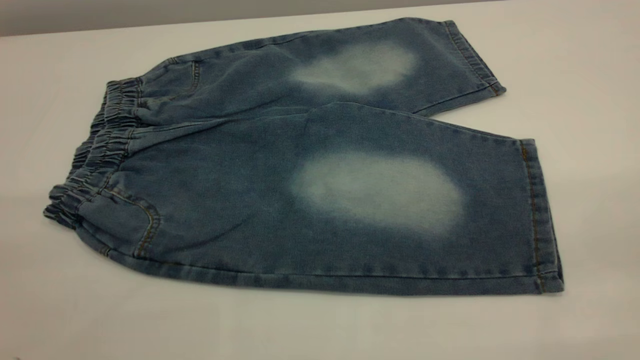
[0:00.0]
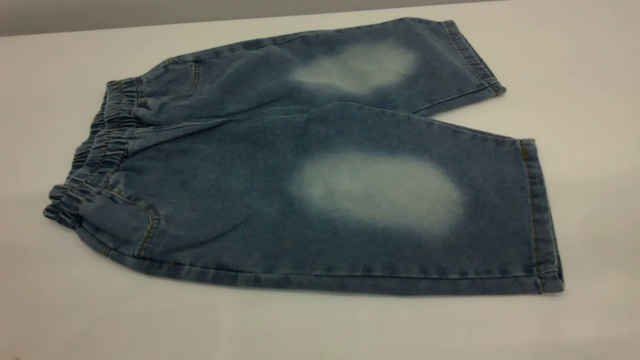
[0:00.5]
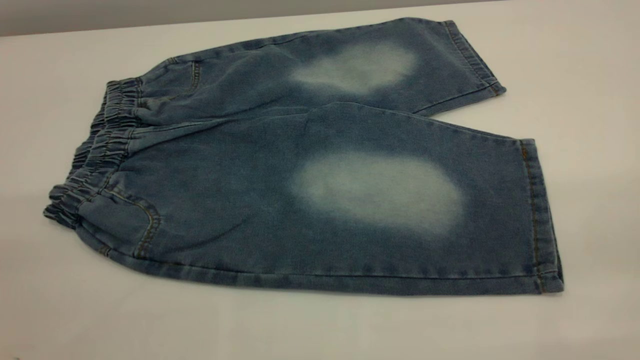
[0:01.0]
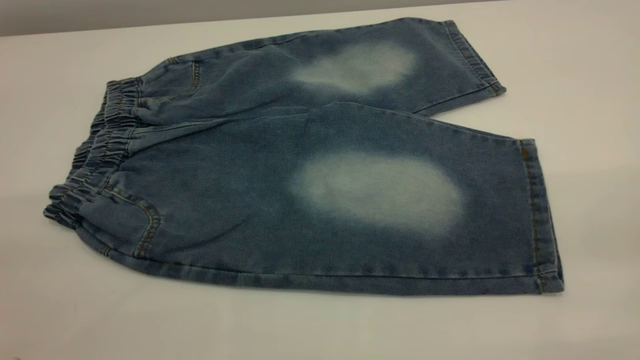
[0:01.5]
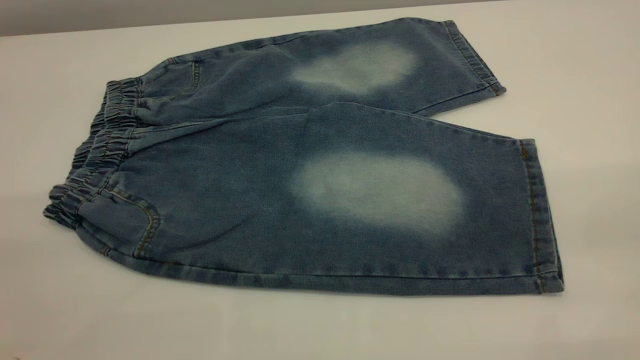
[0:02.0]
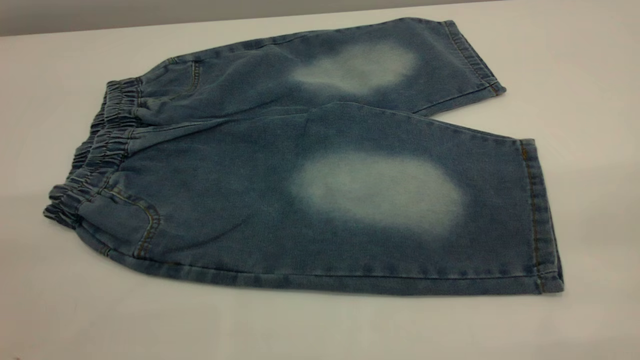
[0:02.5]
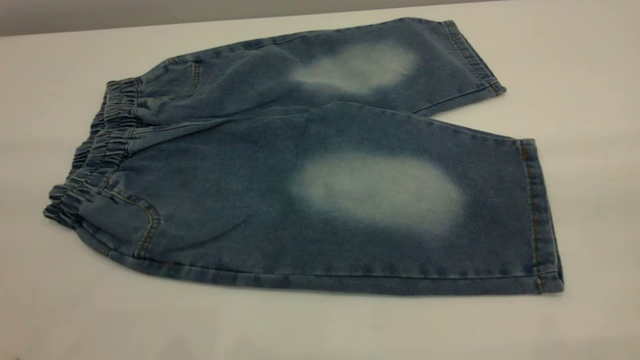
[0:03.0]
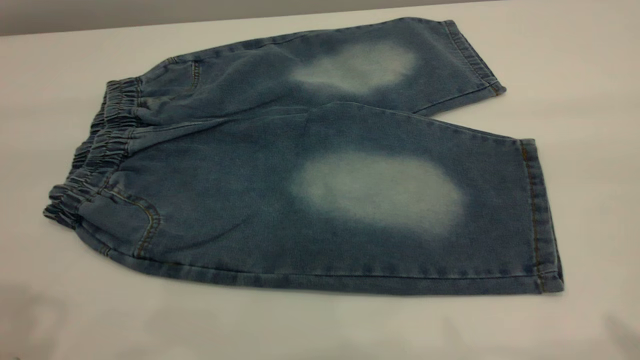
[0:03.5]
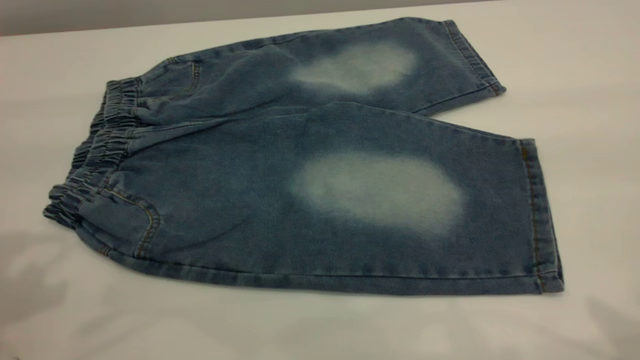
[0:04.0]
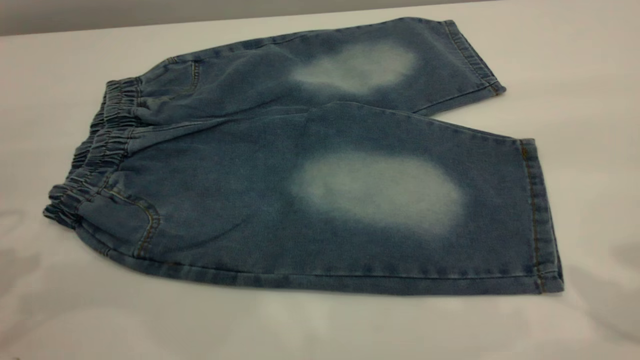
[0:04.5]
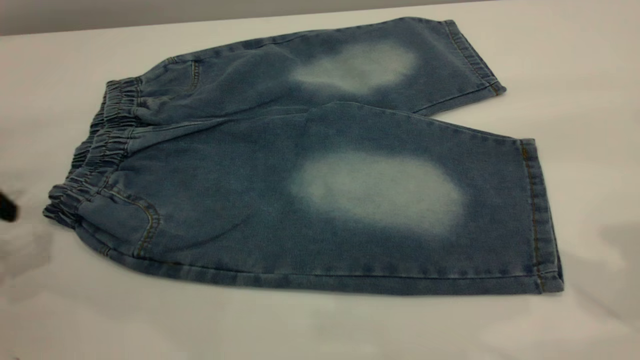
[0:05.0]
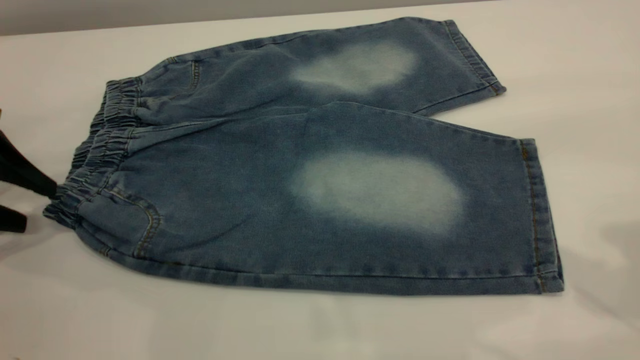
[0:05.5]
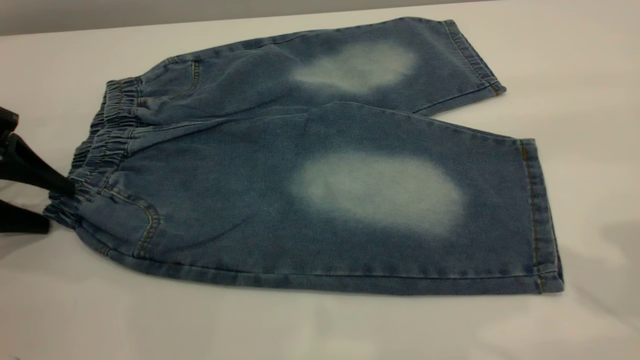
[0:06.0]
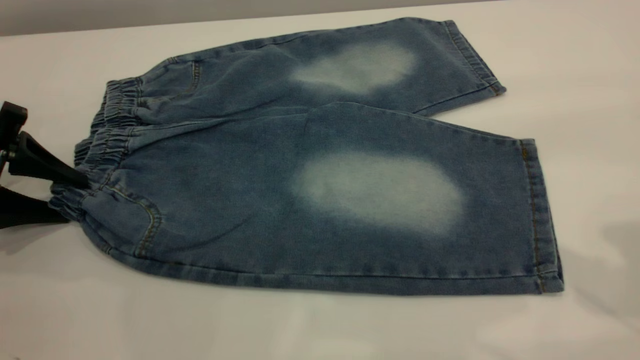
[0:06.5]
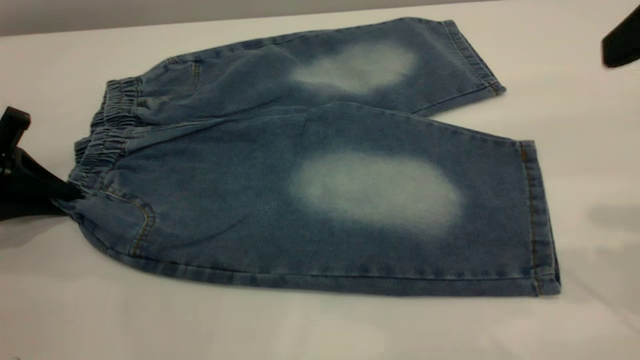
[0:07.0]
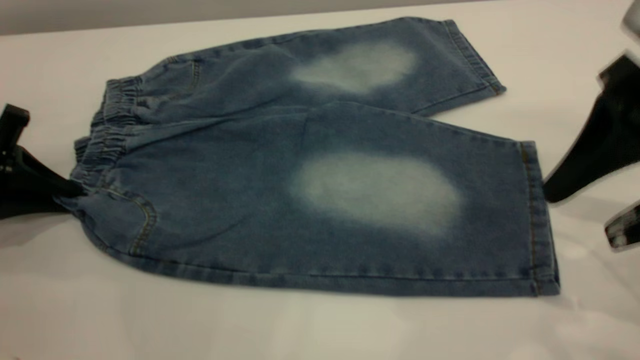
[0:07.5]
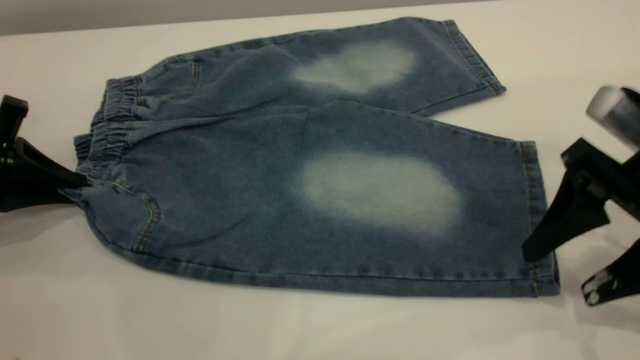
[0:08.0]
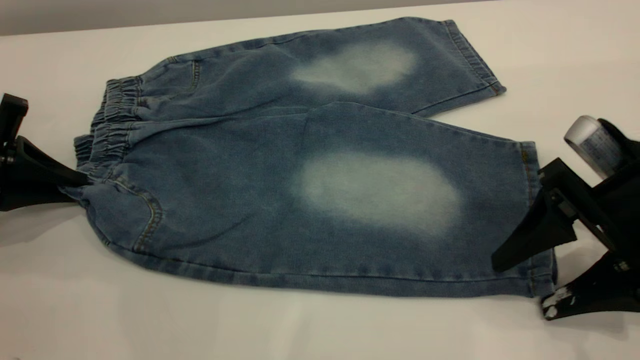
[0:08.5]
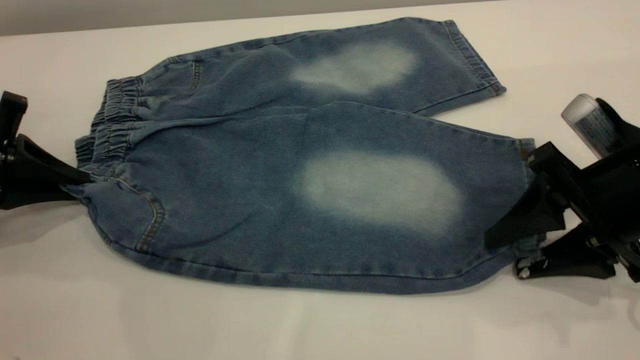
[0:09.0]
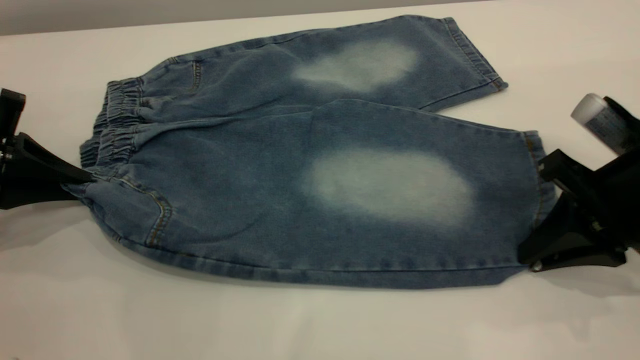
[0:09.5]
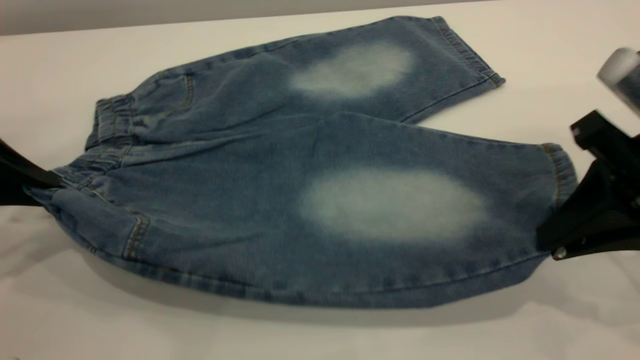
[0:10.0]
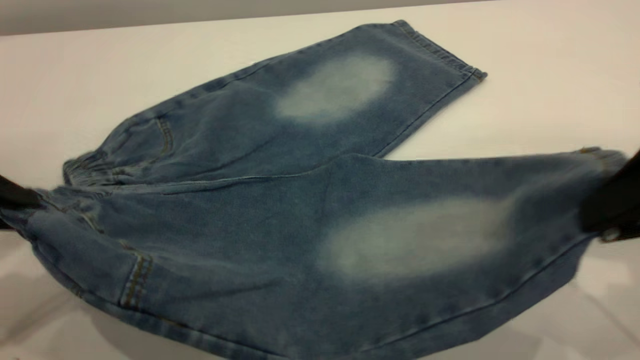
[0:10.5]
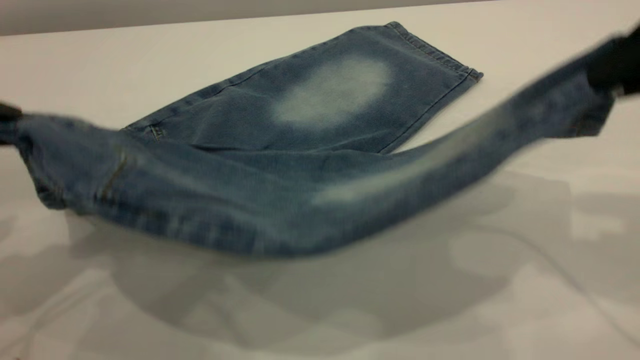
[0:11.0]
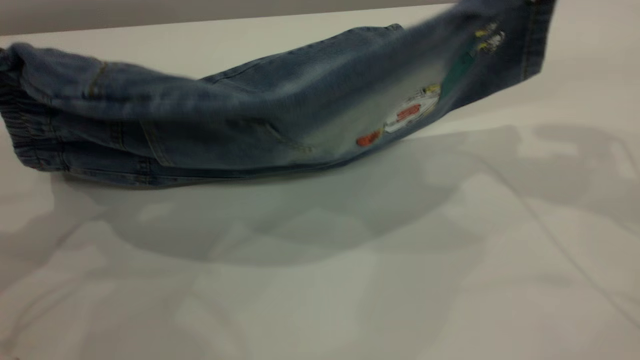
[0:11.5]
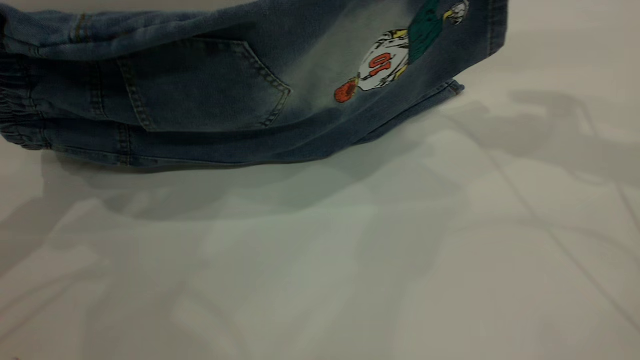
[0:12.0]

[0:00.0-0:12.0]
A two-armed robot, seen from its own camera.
0:04.0 to 0:06.0: The left gripper travels downward and forward by approximately 25 cm.
0:06.0 to 0:08.0: The right gripper is displaced downward by about 20 cm, while the left gripper closes up.
0:08.0 to 0:10.0: The left gripper heads upward, covering approximately 5 cm, while the right gripper closes its fingers.
0:10.0 to 0:12.0: The right gripper is displaced forward and upward by about 20 cm. Meanwhile the left gripper shifts approximately 10 cm upward.

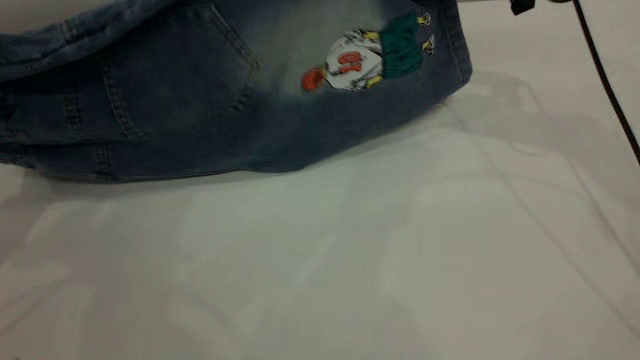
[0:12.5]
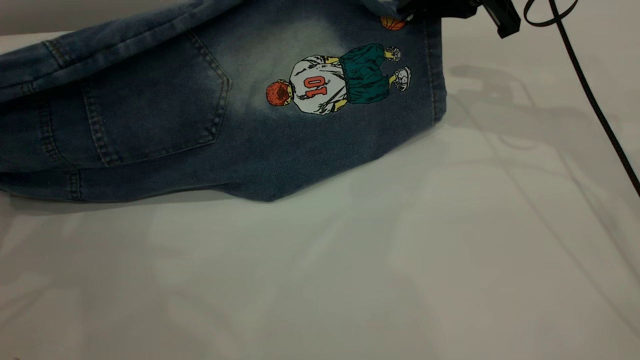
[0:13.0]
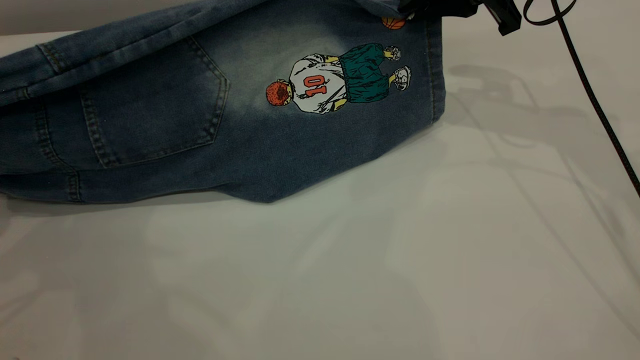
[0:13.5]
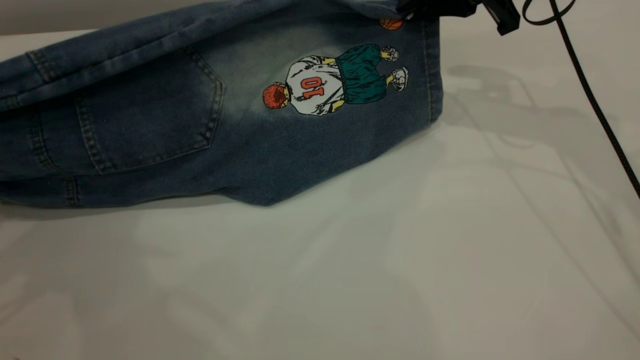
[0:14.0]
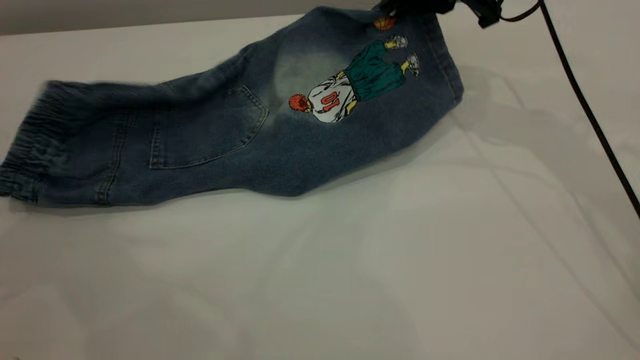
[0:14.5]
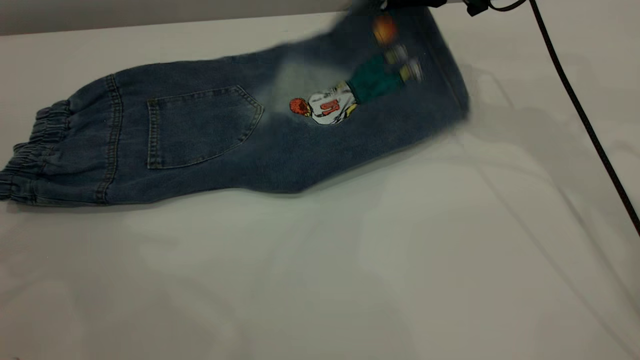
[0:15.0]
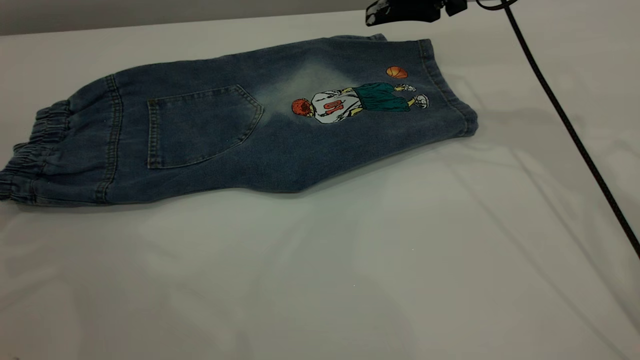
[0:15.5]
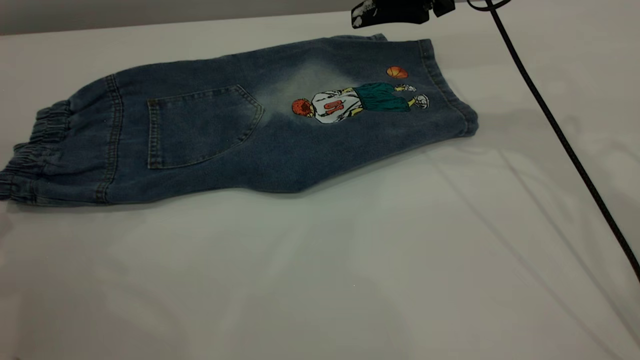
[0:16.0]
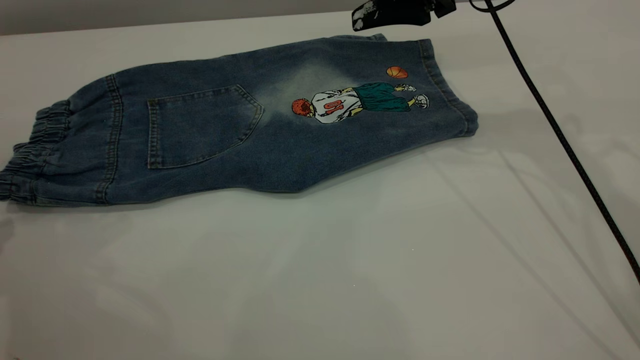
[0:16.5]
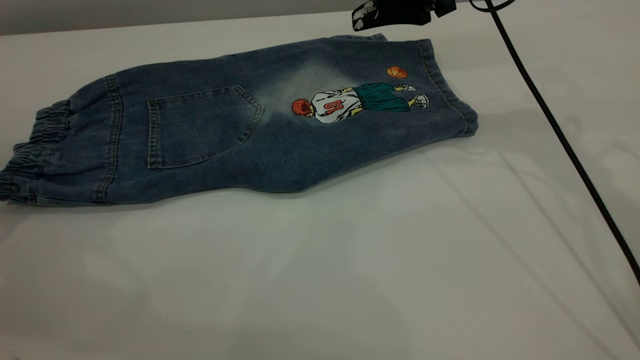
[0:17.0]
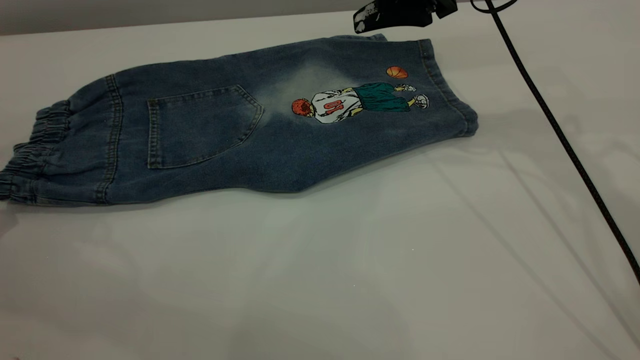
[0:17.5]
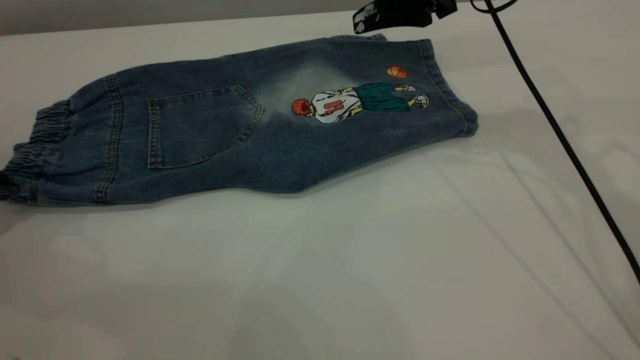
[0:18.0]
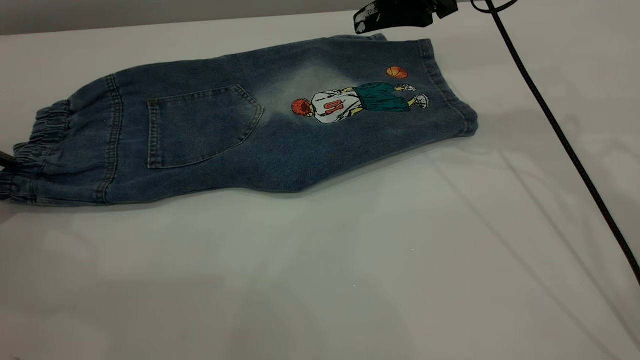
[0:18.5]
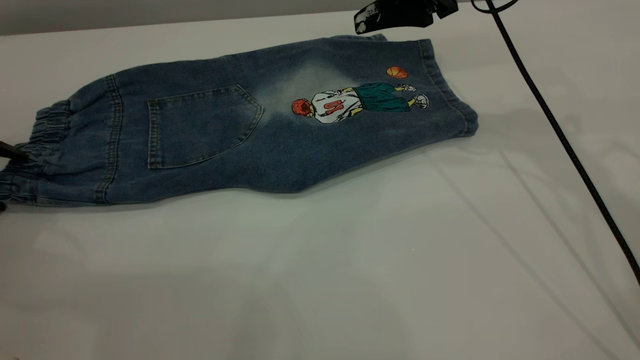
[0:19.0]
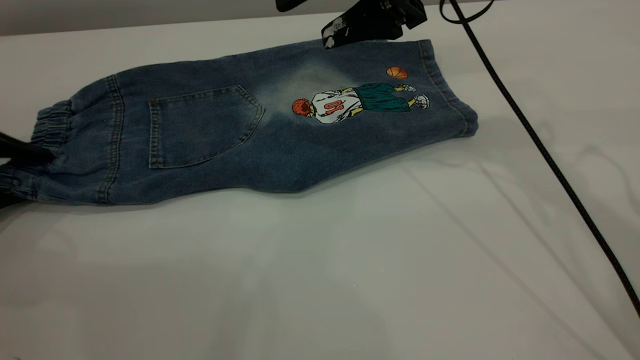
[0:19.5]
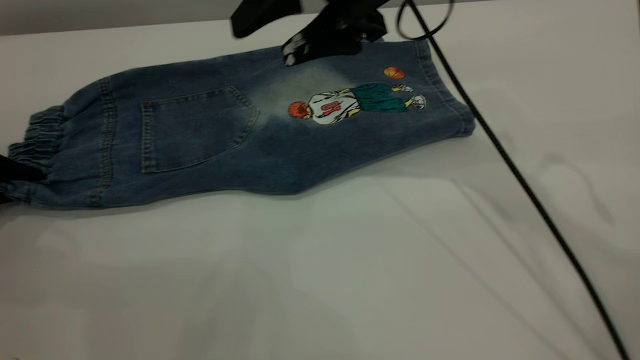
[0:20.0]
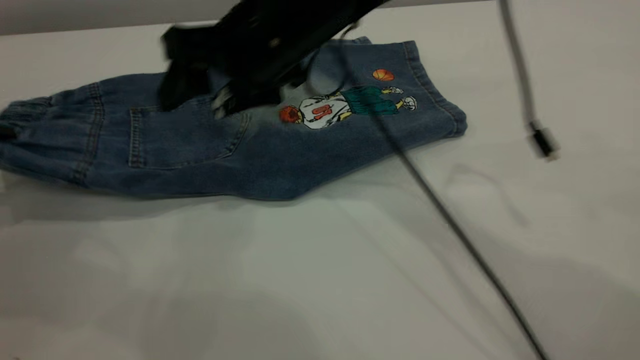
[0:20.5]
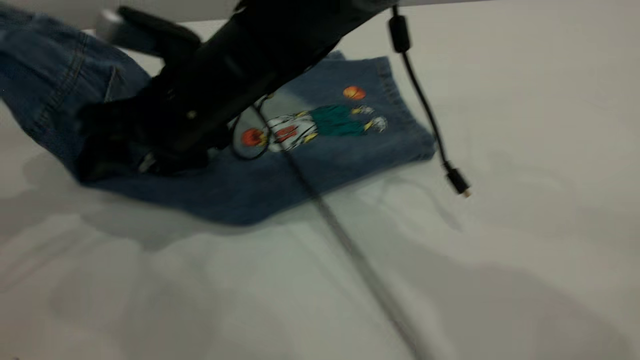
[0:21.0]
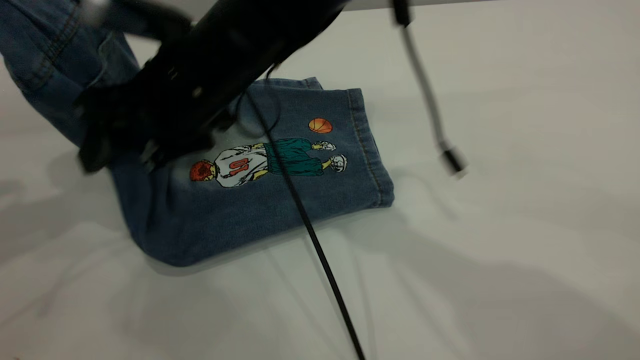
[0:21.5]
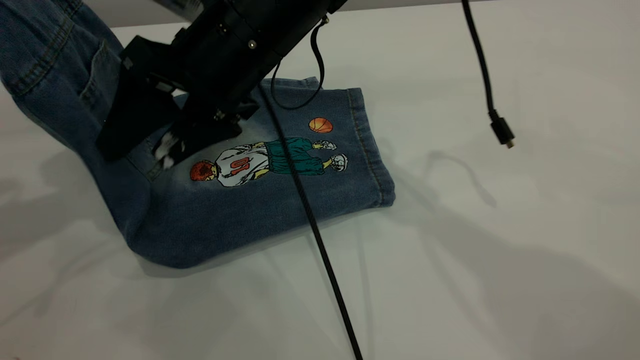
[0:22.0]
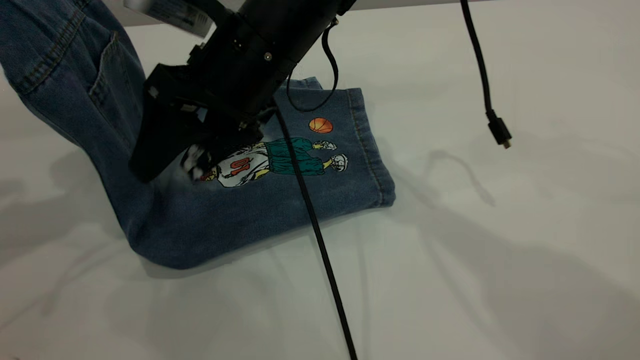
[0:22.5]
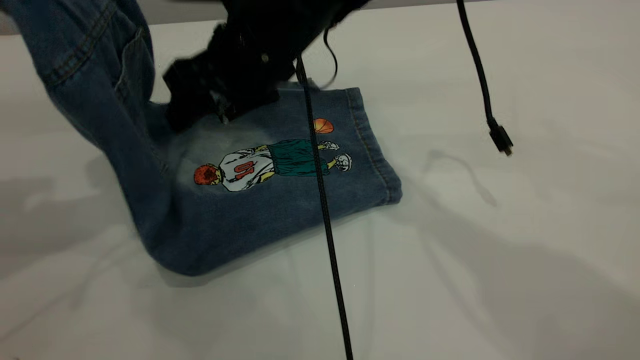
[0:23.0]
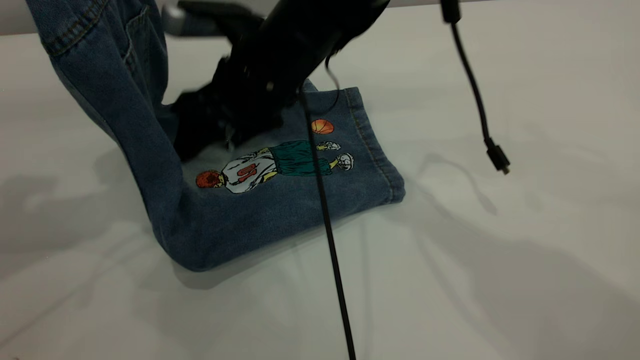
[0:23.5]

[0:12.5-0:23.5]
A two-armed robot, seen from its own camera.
Step, 0:12.5 to 0:16.0: Fold the bottom of the pants upward.
0:14.5 to 0:16.0: The left gripper ends up some 5 cm from where it was, while the right gripper opens its fingers.
0:18.0 to 0:20.0: The left gripper closes up; the right gripper is displaced to the left by approximately 10 cm.
0:20.0 to 0:21.5: The right gripper is displaced to the left by roughly 15 cm; the left gripper is displaced upward by roughly 20 cm.
0:21.5 to 0:23.5: The right gripper moves approximately 5 cm.
